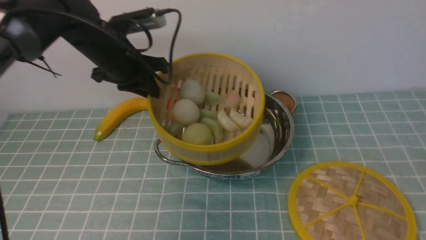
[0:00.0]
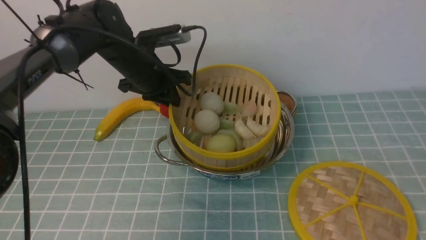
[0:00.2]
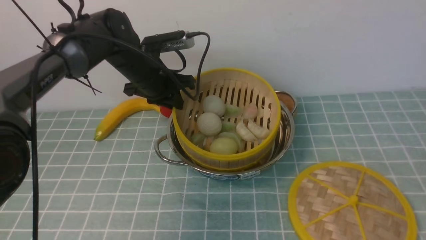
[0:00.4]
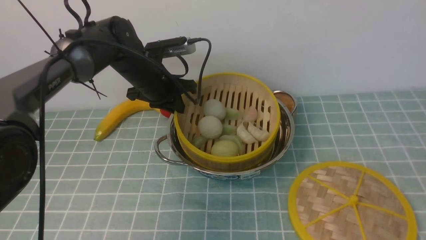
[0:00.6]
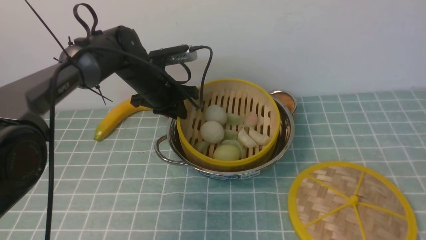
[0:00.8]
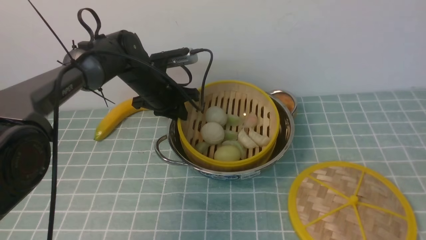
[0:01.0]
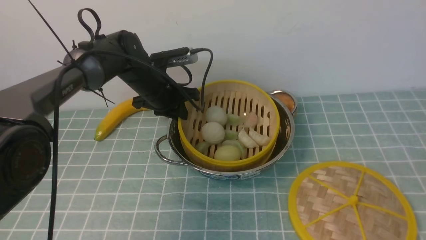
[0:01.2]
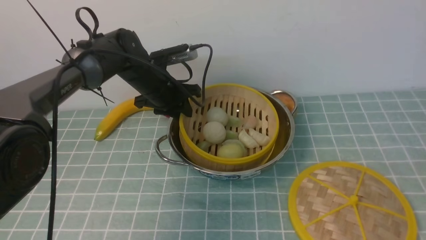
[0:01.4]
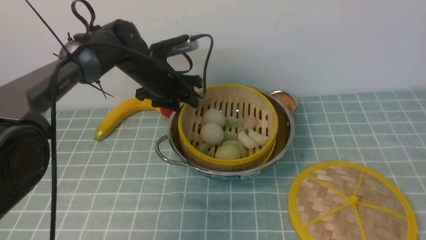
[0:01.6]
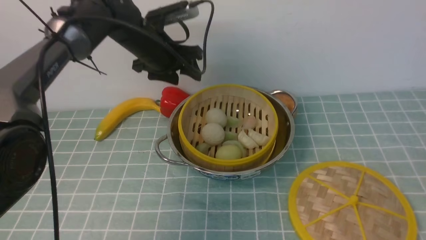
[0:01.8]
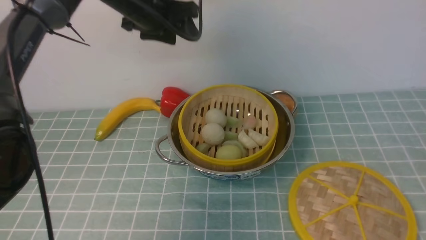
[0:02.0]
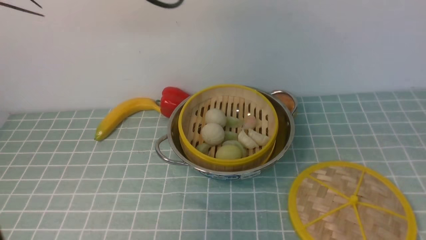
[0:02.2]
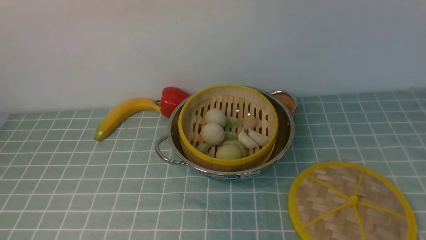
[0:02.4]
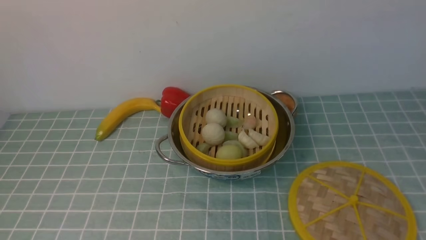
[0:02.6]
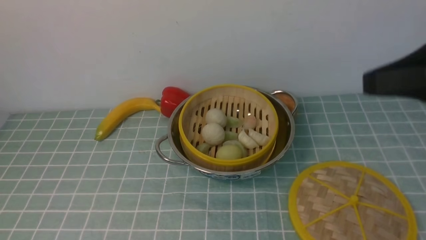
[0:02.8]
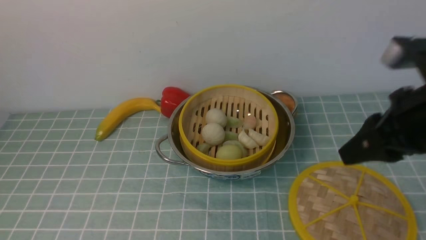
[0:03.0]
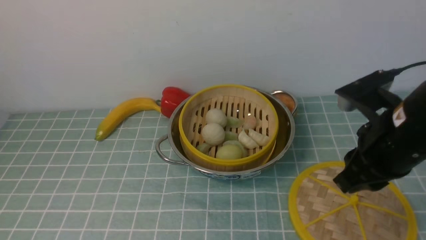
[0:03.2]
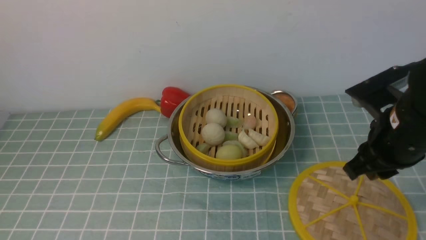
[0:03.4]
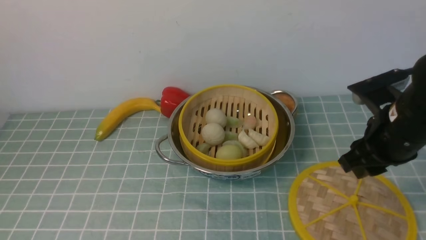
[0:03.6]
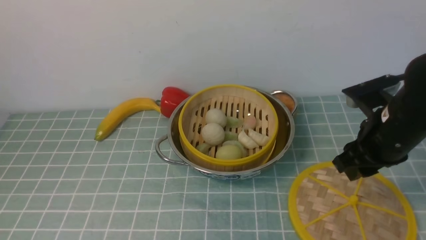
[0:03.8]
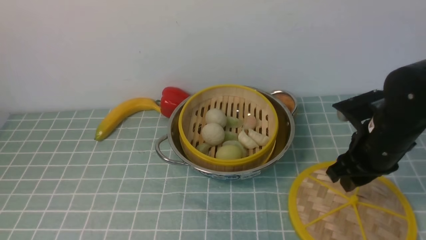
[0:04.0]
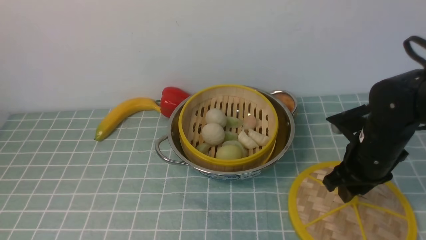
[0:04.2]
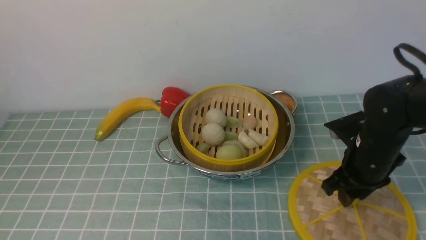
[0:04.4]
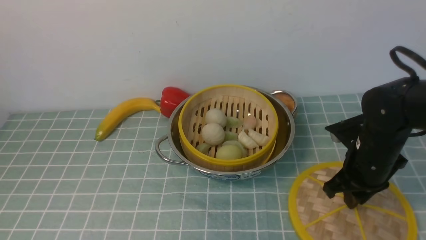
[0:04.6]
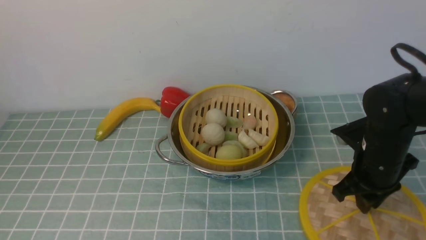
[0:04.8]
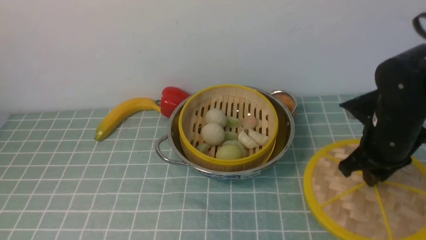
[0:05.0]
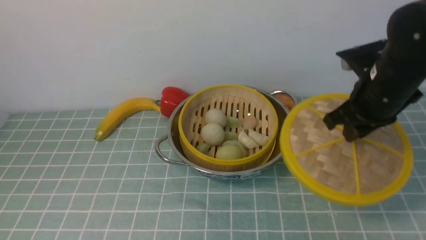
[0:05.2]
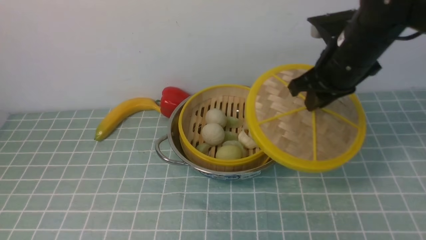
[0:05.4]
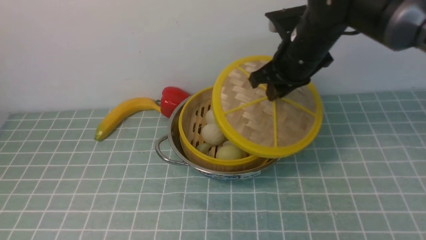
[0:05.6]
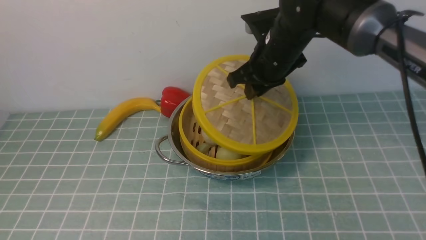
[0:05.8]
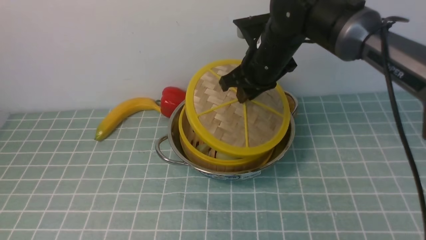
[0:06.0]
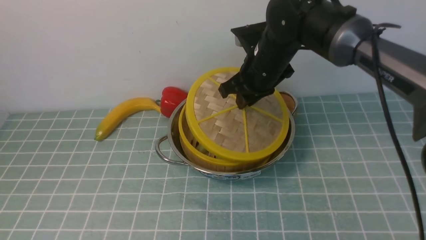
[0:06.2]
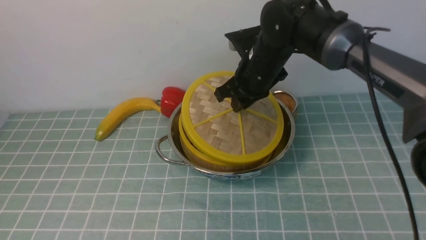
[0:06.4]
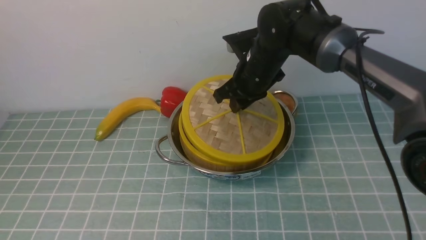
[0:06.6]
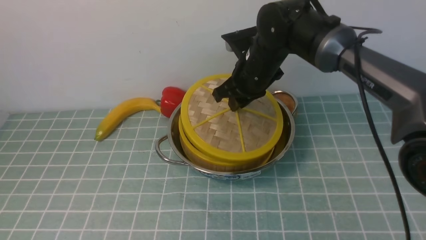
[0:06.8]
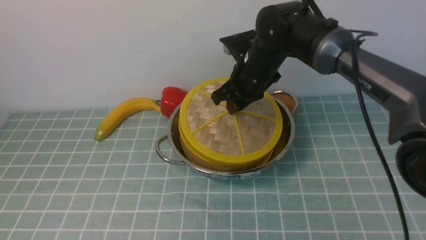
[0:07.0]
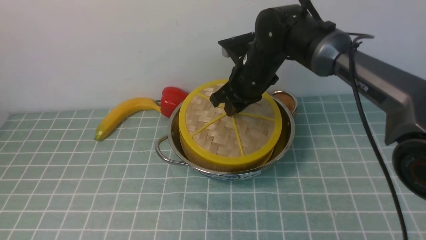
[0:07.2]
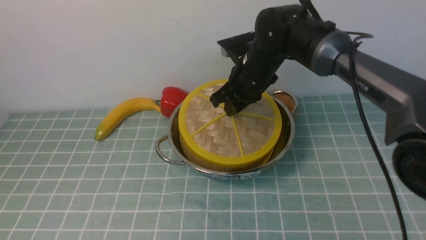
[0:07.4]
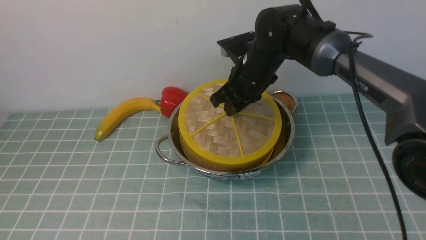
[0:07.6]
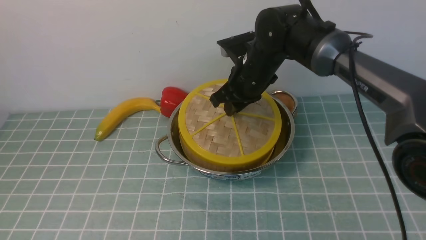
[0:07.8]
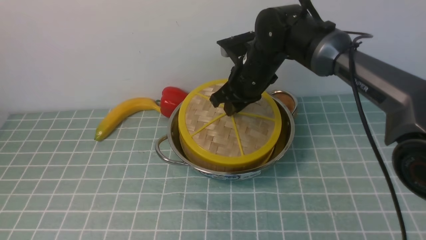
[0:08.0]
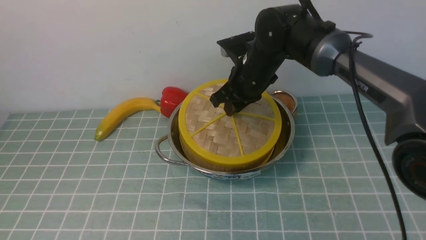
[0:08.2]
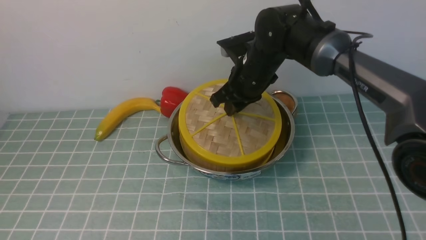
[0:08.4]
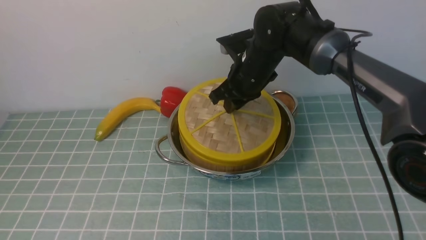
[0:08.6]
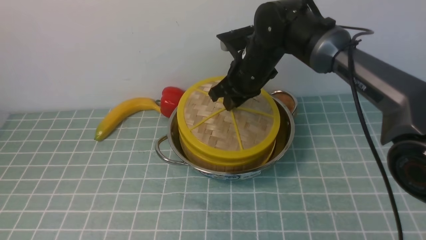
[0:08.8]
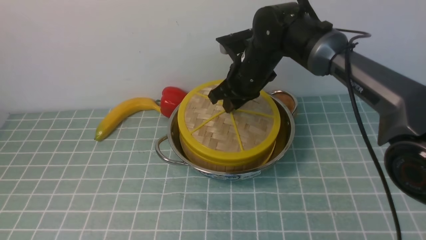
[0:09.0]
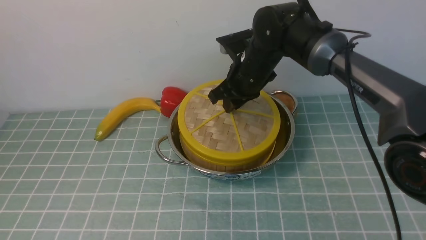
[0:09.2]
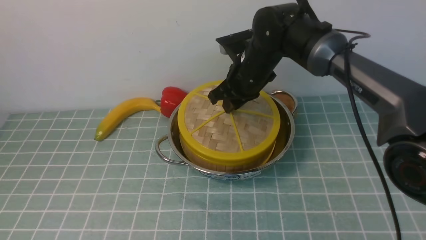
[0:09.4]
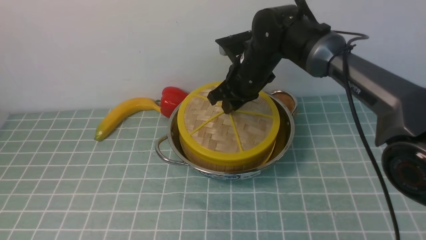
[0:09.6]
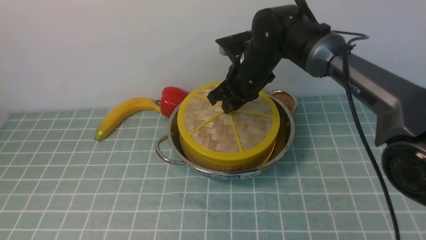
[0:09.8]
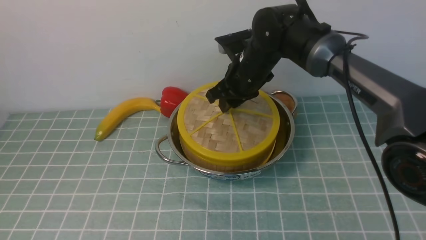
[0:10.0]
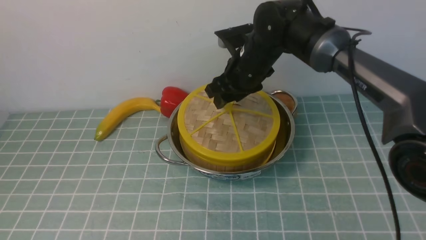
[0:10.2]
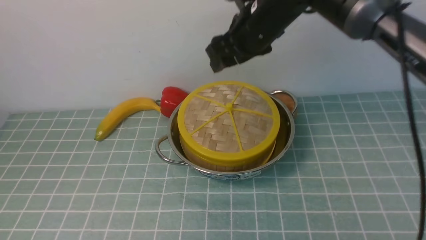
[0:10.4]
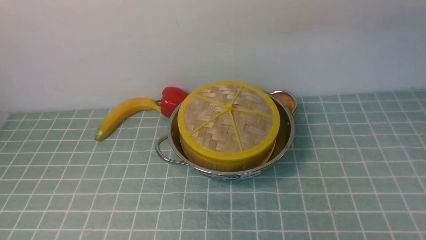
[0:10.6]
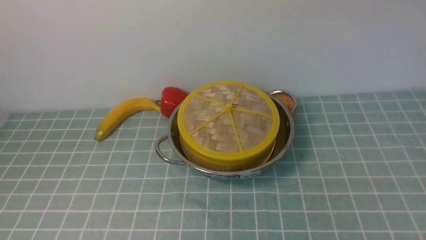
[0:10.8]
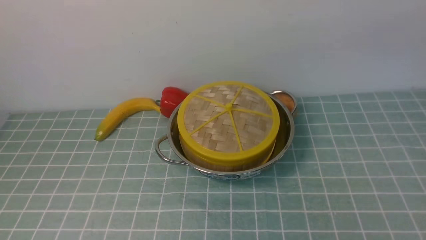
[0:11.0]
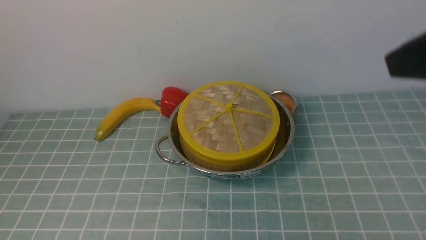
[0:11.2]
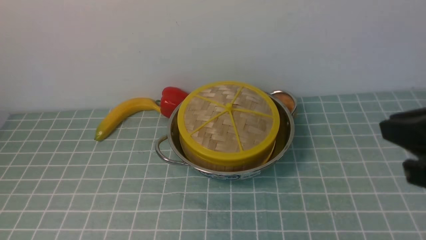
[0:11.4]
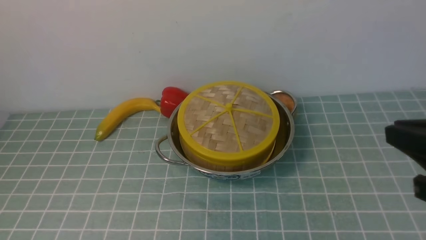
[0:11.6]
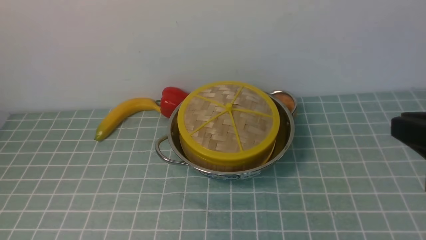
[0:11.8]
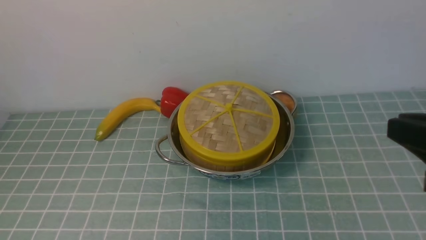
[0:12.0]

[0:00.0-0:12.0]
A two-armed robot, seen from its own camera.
Task of the whole recording: place the steamer in the pot on the blue tablecloth, and put the lid on the steamer.
Step, 0:00.0 to 0:02.2: use the left arm to put the steamer into the iron steamer pot in the middle.
Step, 0:02.4 to 0:05.2: use the right arm to lift the lid of the steamer.
Step, 0:05.4 to 0:10.6: use the right arm to place the steamer lid on the steamer.
0:00.0 to 0:01.6: The left gripper changes place by approximately 5 cm, and opens.
0:01.6 to 0:03.0: The left gripper goes roughly 50 cm backward and upward, and closes up. The right gripper travels forward by roughly 20 cm.
0:03.0 to 0:04.4: The right gripper goes roughly 15 cm downward and forward.
0:04.4 to 0:06.0: The right gripper shifts some 20 cm to the left, forward and upward, and closes.
0:06.0 to 0:07.6: The grippers move only a little.
0:07.6 to 0:09.0: Neither gripper changes place.
0:09.0 to 0:10.4: The right gripper travels upward by some 15 cm, and opens.
0:10.4 to 0:12.0: The right gripper travels backward and to the right by about 30 cm, and closes up.

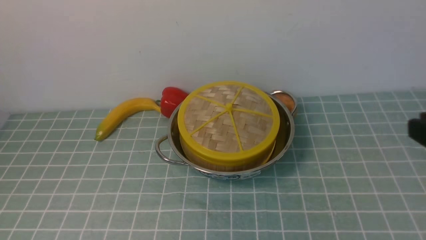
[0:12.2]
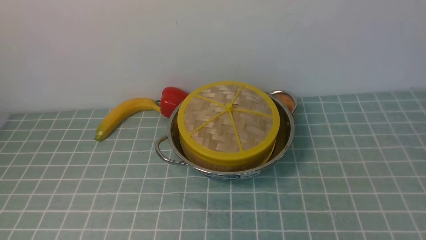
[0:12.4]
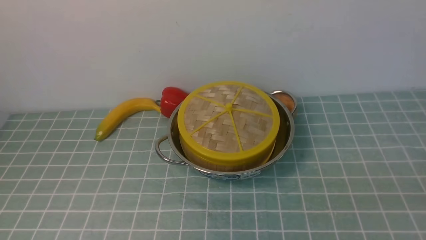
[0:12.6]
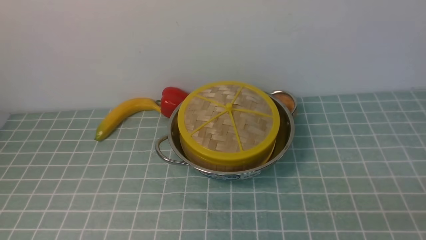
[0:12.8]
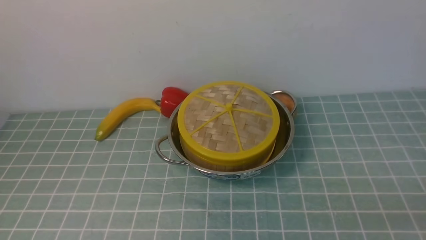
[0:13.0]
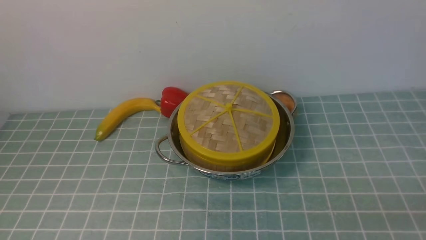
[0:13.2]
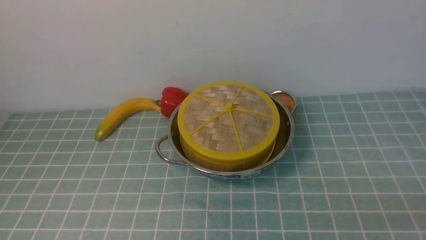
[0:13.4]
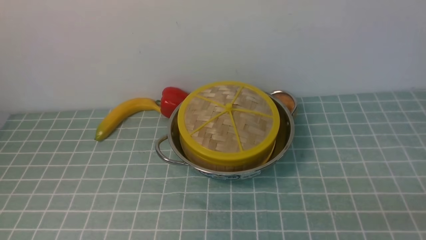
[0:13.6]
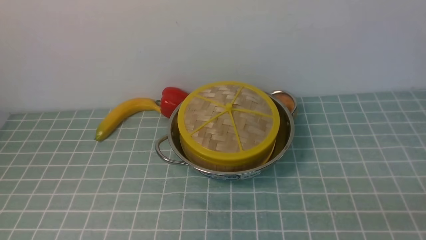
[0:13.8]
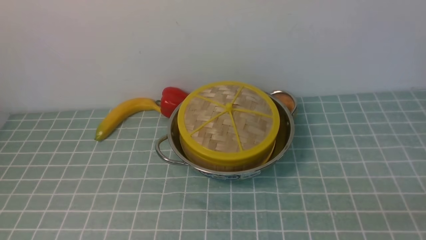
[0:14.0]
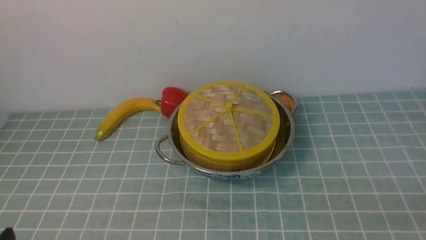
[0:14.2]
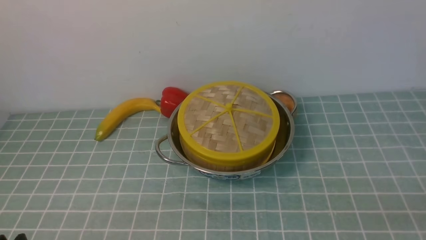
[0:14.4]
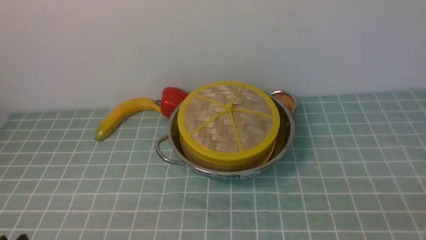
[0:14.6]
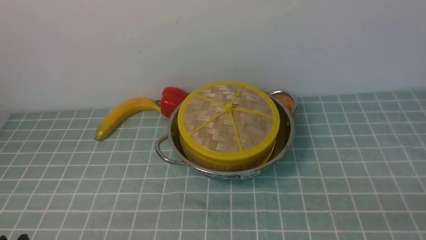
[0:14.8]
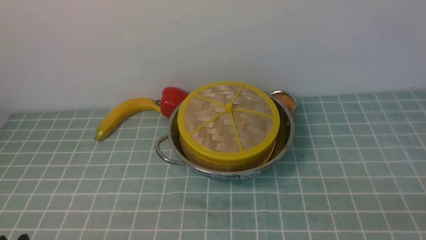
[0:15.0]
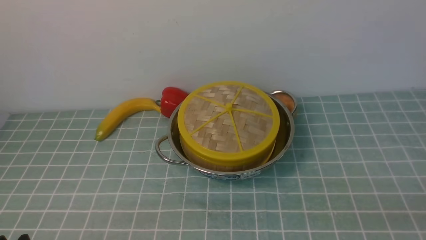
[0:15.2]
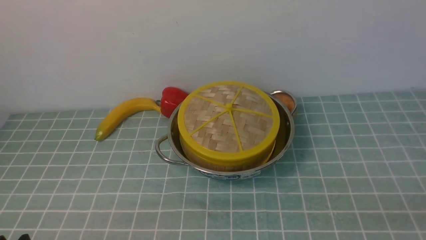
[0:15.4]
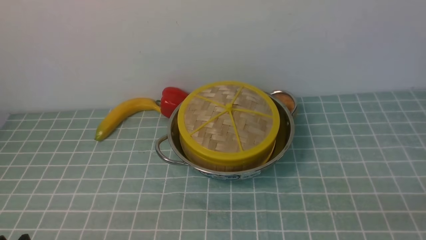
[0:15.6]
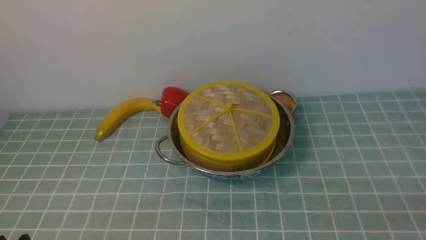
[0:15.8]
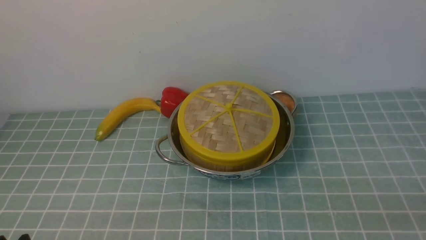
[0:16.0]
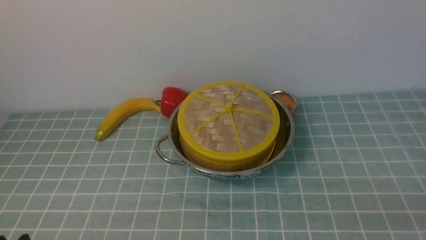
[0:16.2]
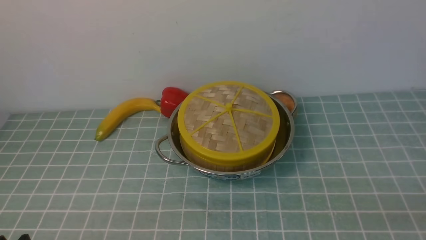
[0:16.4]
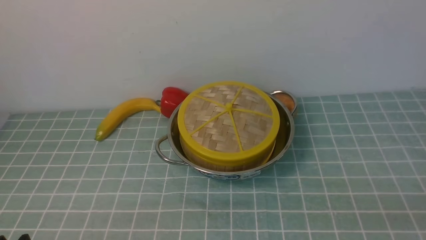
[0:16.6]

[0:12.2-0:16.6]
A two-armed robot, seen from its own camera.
Task of the whole recording: place the steamer in the pot on the blue tablecloth, and put the lid on the steamer.
0:15.2 to 0:16.6: Both grippers stay about where they are.
